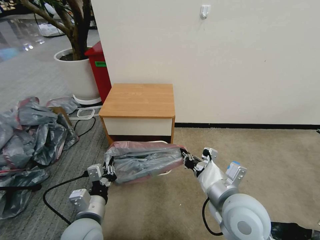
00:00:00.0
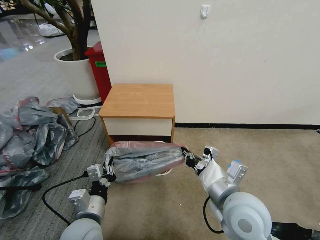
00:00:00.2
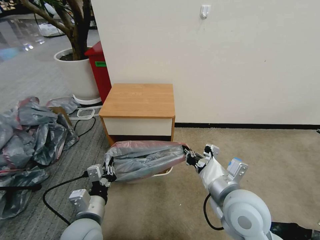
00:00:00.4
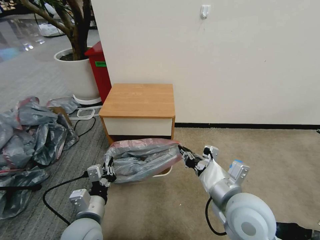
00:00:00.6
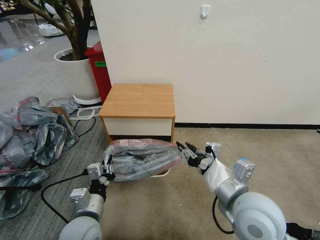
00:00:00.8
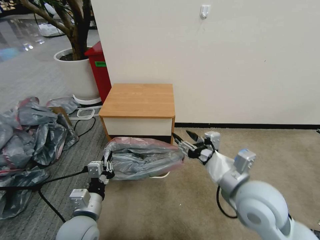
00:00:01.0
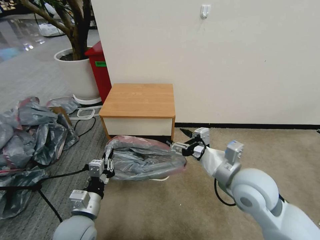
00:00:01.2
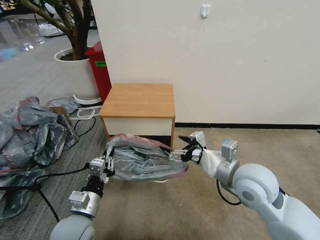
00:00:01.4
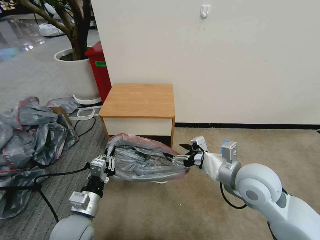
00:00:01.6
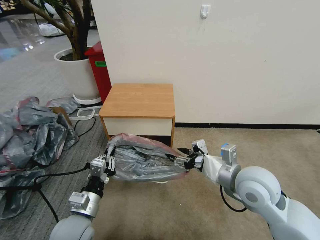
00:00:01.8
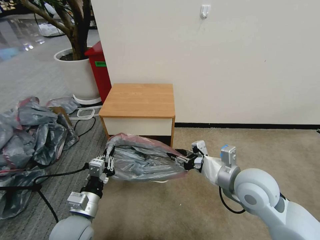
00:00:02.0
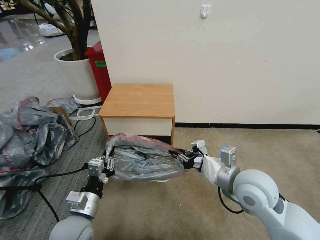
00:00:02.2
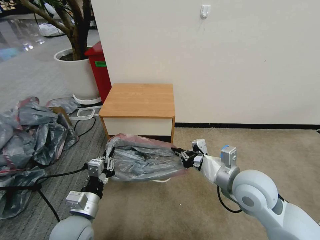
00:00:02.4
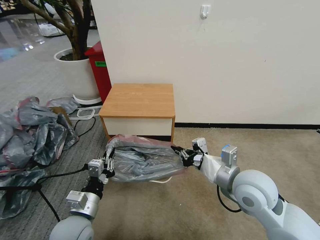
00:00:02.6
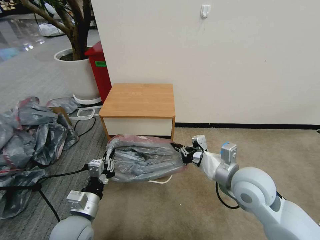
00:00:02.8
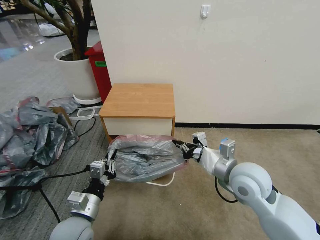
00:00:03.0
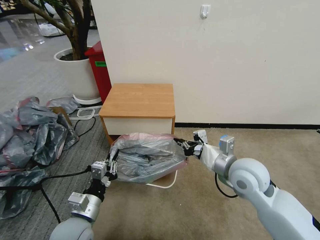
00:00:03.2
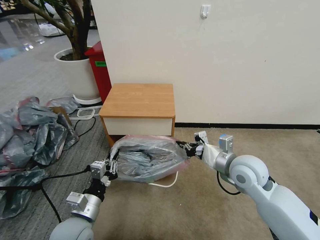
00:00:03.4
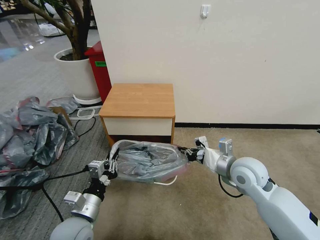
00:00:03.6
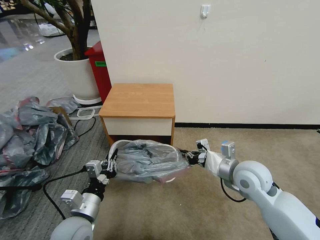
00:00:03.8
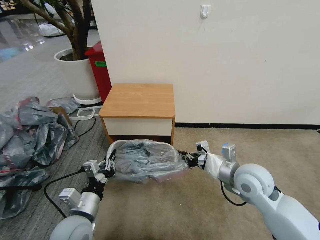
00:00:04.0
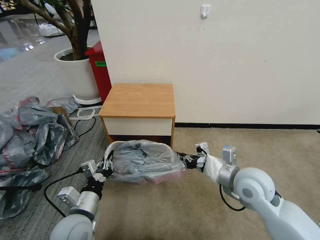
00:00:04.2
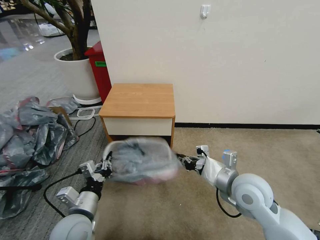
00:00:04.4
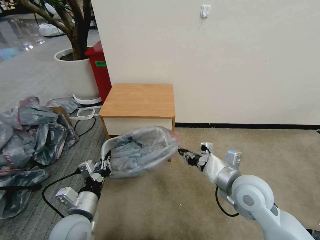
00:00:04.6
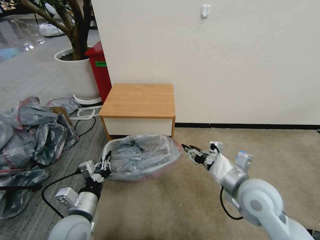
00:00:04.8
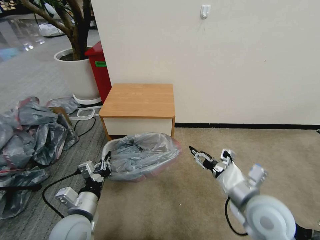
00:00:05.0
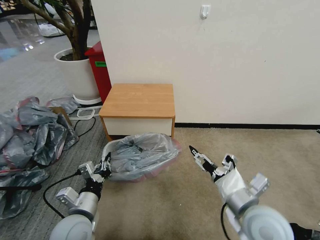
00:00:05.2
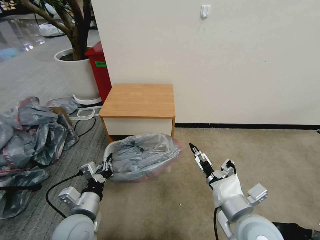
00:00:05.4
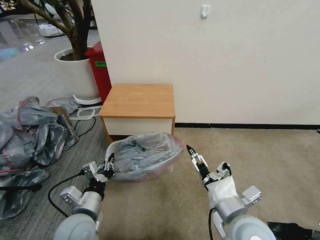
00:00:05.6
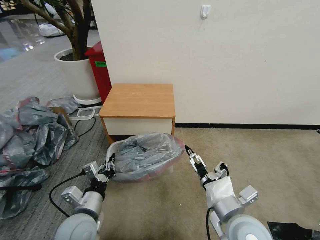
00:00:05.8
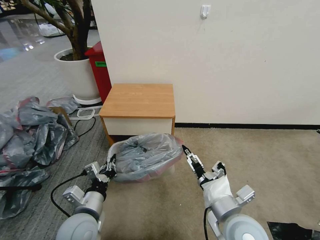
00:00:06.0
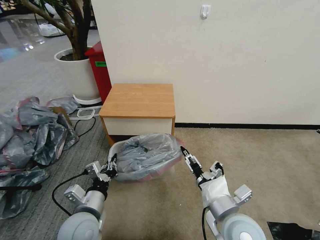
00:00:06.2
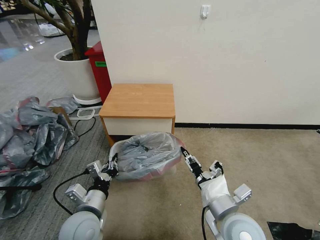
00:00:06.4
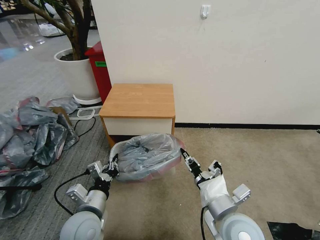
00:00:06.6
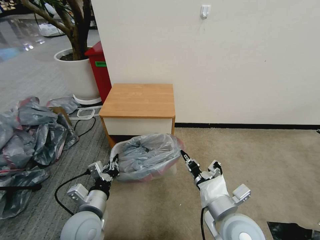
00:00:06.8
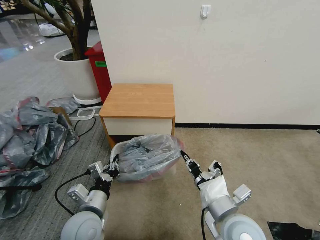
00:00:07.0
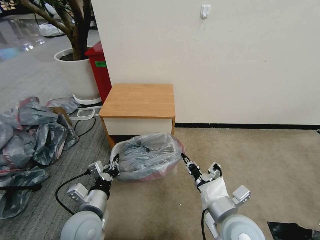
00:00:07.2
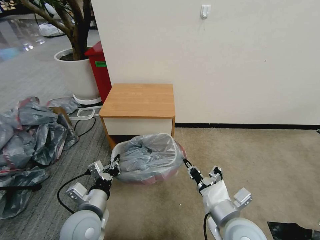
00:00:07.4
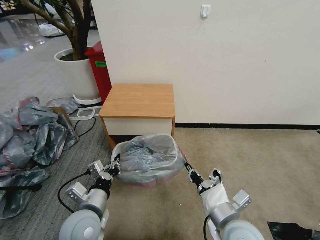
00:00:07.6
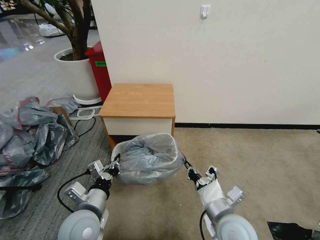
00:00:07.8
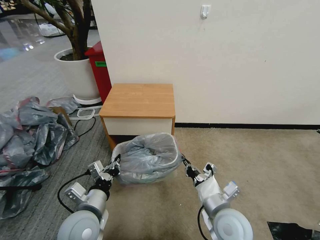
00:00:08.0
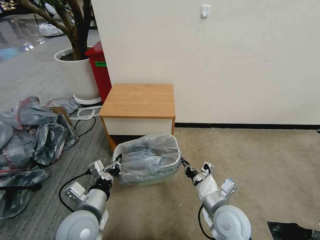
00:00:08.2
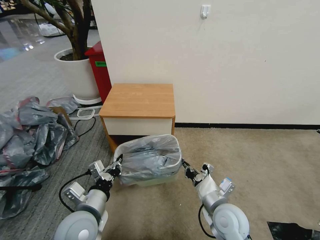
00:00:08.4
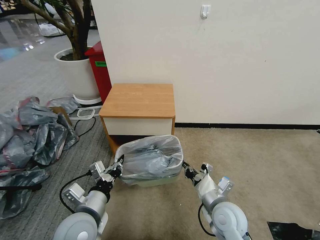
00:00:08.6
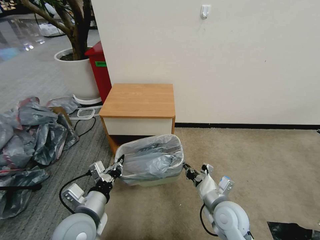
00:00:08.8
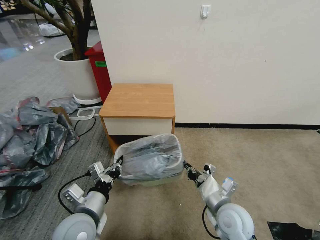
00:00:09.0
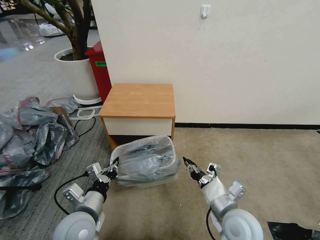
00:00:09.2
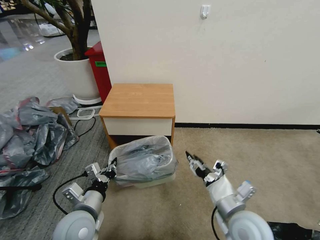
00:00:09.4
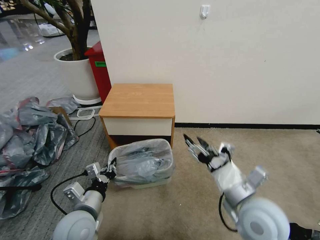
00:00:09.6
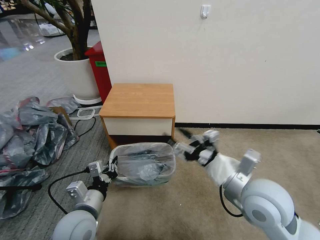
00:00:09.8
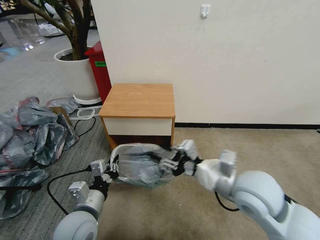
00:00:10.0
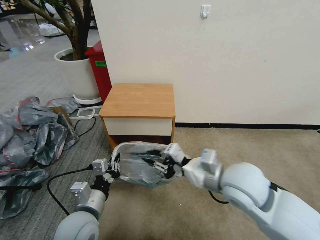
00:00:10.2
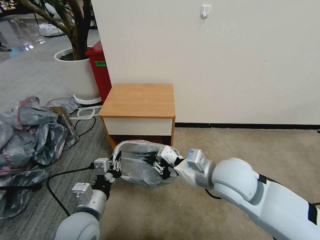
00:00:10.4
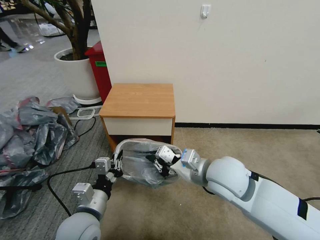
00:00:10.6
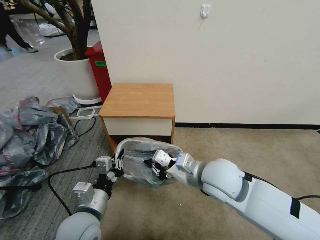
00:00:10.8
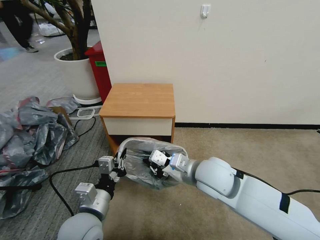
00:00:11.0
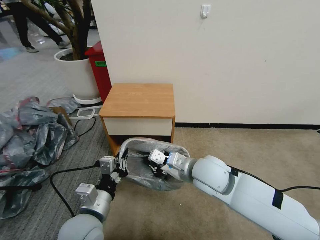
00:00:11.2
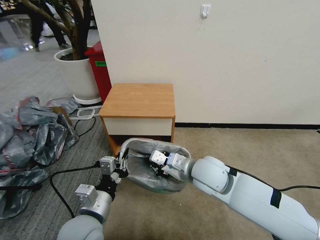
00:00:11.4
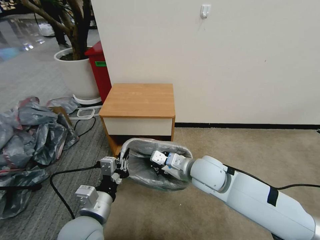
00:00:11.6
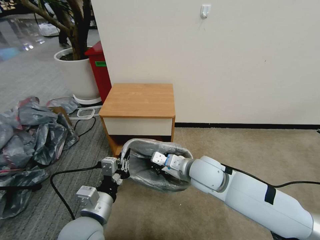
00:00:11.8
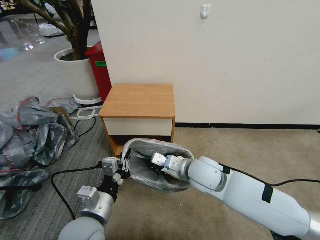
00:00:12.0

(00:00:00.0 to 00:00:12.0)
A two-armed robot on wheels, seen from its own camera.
Task of the whole recording: Pick up the garbage bag from the table and place it over the trash can.
00:00:00.0 - 00:00:01.6: The right gripper moves forward and to the right, some 10 cm, and opens up.
00:00:01.6 - 00:00:03.0: The right gripper closes up.
00:00:04.4 - 00:00:06.0: The right gripper heads backward, covering about 10 cm, and opens its fingers.
00:00:06.0 - 00:00:07.6: The right gripper closes its fingers.
00:00:07.6 - 00:00:09.0: The right gripper changes place by about 5 cm.
00:00:09.0 - 00:00:10.4: The right gripper travels upward by roughly 15 cm, and opens, then closes again.
00:00:10.4 - 00:00:12.0: The right gripper heads downward and forward, covering some 10 cm.

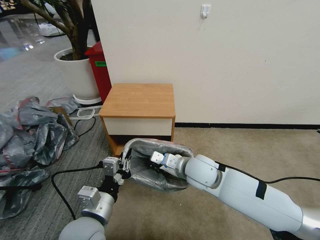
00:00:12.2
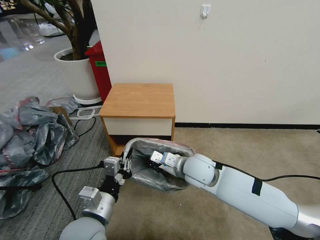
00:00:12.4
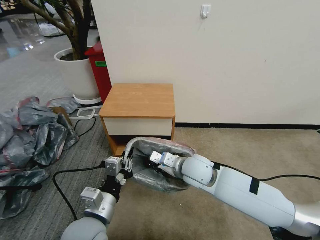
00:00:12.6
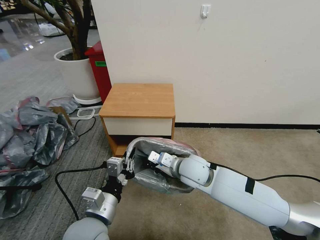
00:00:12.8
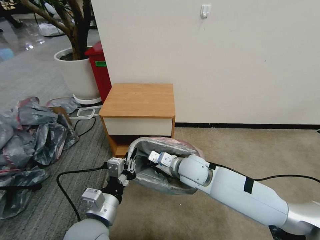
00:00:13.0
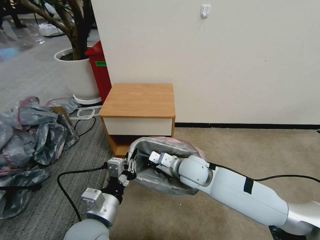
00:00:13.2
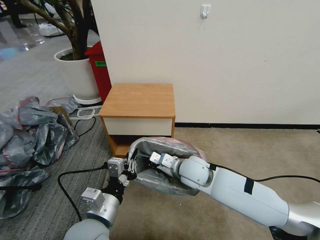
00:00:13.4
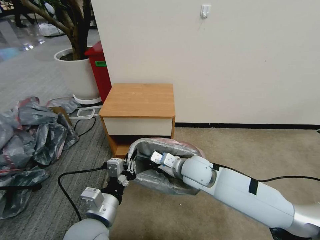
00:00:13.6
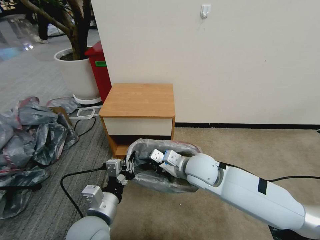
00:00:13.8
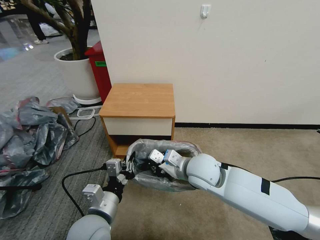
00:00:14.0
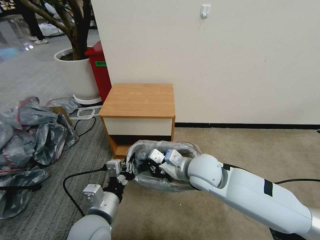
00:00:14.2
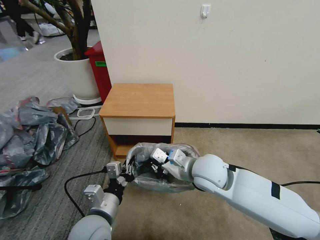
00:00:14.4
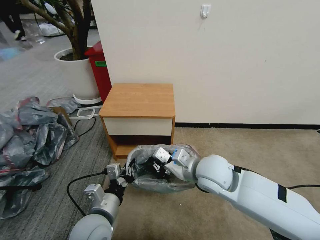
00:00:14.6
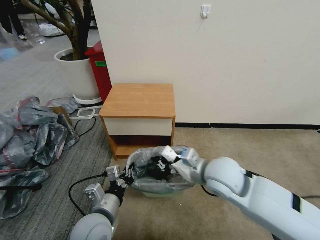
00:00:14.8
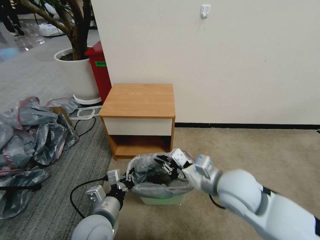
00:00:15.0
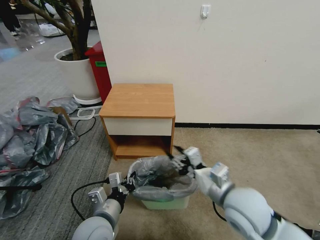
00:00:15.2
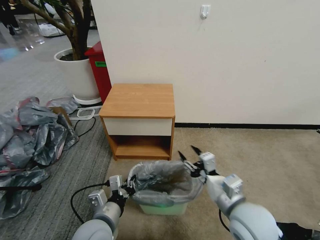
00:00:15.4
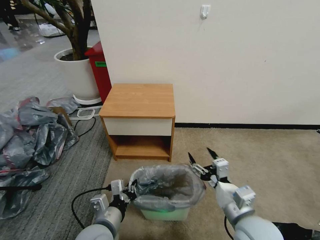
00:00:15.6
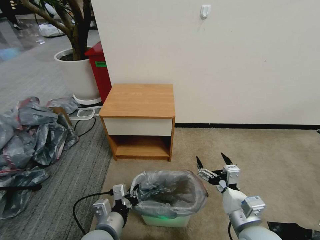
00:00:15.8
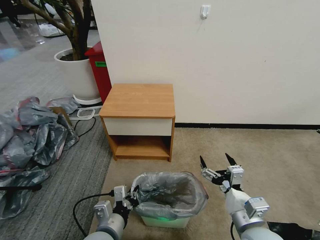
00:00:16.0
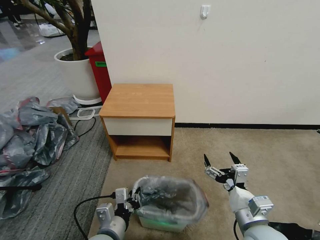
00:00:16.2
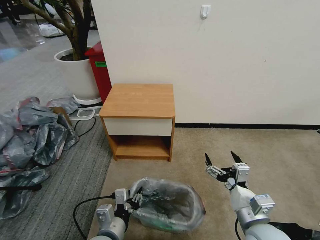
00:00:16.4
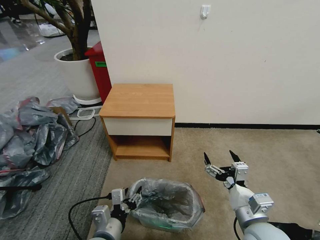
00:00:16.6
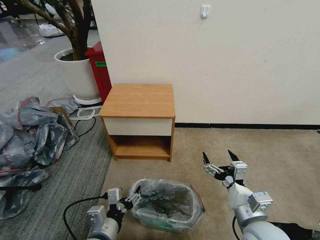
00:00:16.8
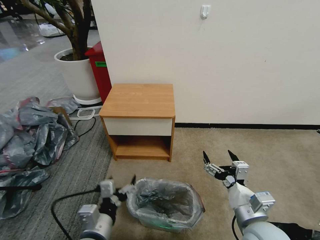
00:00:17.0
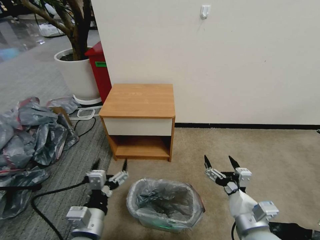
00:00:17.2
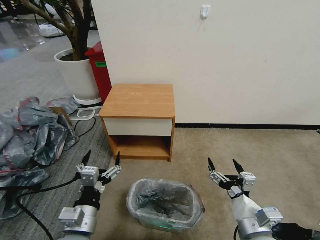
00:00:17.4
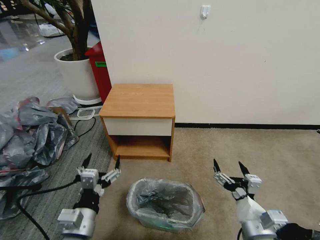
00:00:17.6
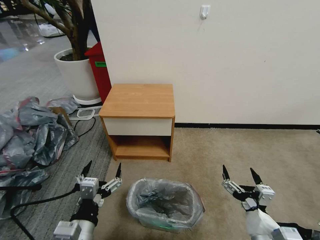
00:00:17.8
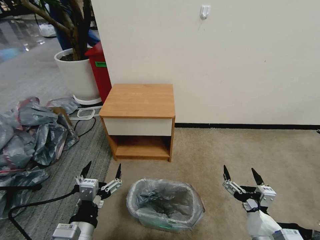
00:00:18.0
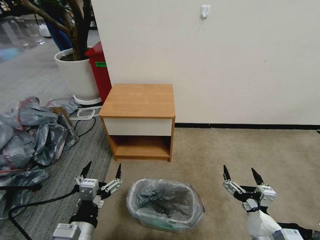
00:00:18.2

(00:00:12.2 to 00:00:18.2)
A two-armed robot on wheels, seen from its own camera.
Task of the whole recording: Pick up the garbage bag from the table and place it over the trash can.
00:00:12.2 - 00:00:13.8: The grippers make only small movements.
00:00:13.8 - 00:00:15.2: The right gripper goes about 15 cm backward and to the right, and opens up.
00:00:15.2 - 00:00:16.6: The right gripper travels backward and downward by approximately 10 cm, and opens its fingers. The left gripper opens.
00:00:16.6 - 00:00:18.2: The right gripper heads backward, covering about 5 cm, while the left gripper shifts some 5 cm upward, and opens up.
